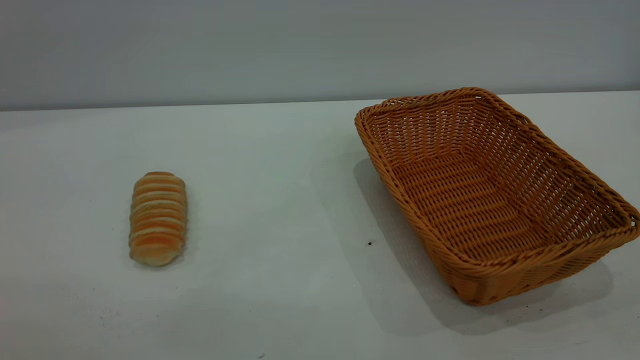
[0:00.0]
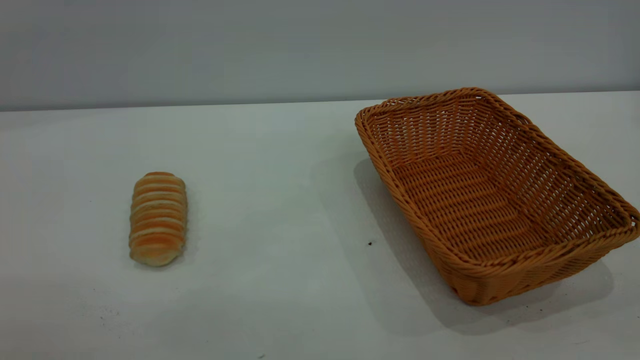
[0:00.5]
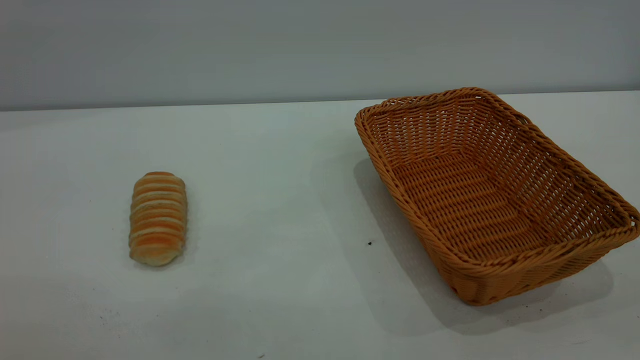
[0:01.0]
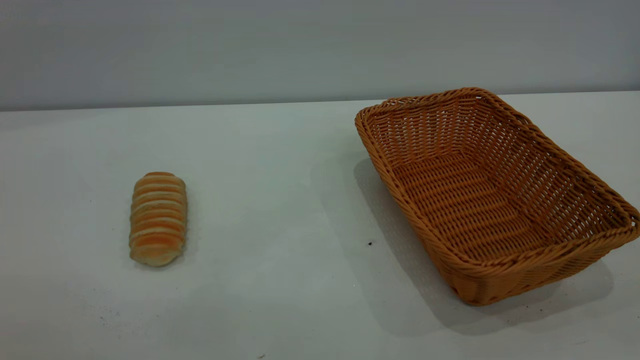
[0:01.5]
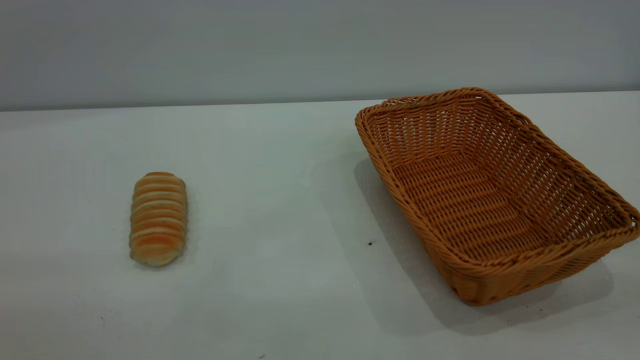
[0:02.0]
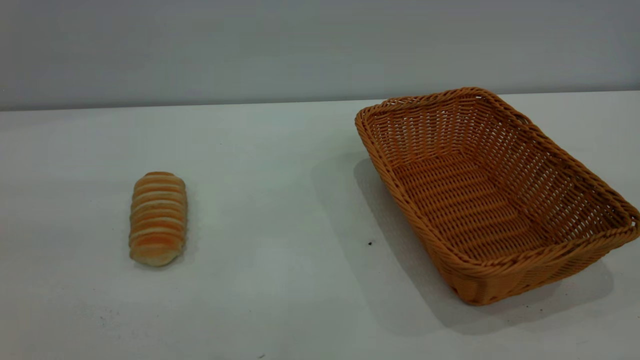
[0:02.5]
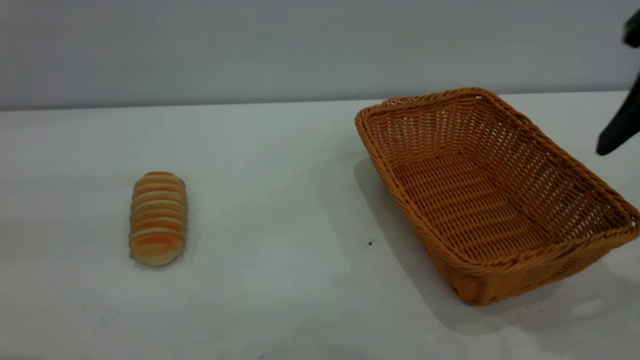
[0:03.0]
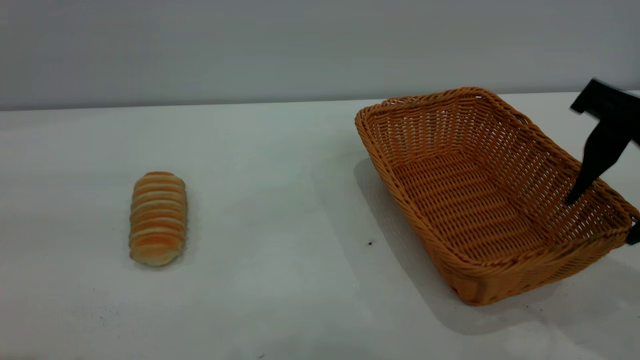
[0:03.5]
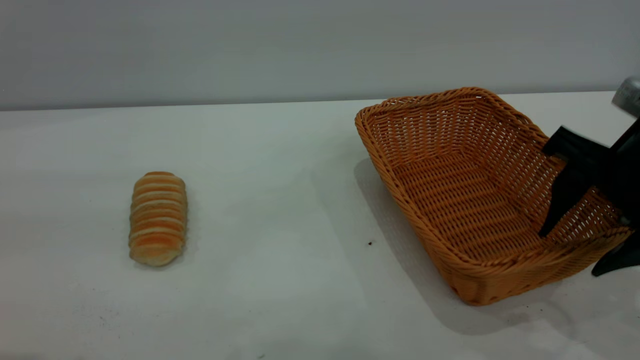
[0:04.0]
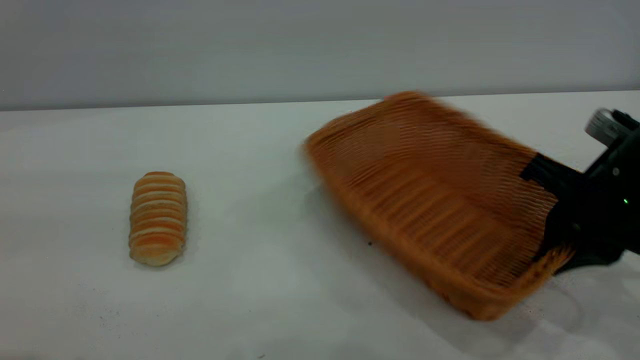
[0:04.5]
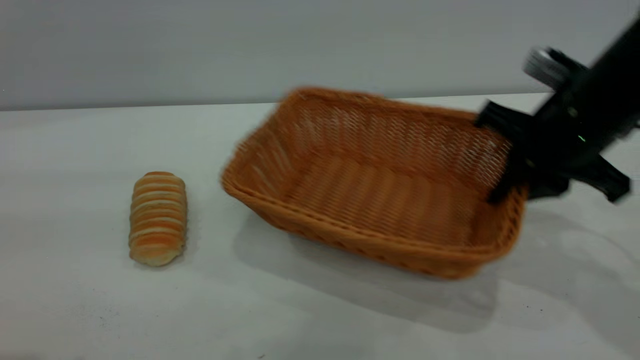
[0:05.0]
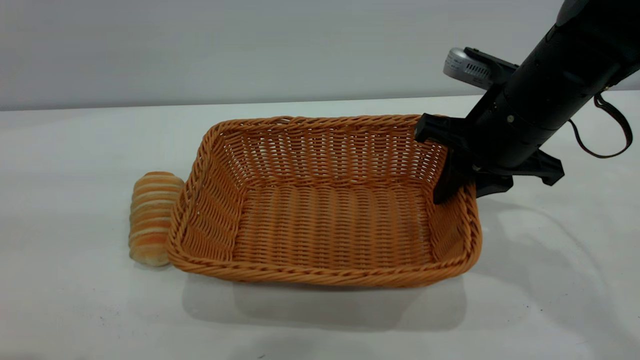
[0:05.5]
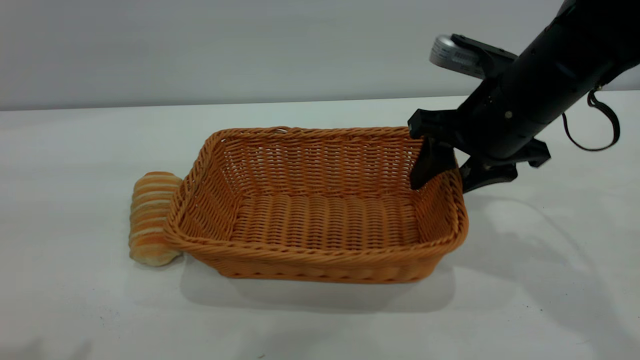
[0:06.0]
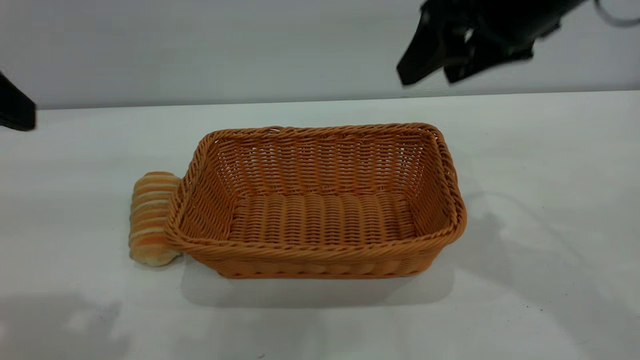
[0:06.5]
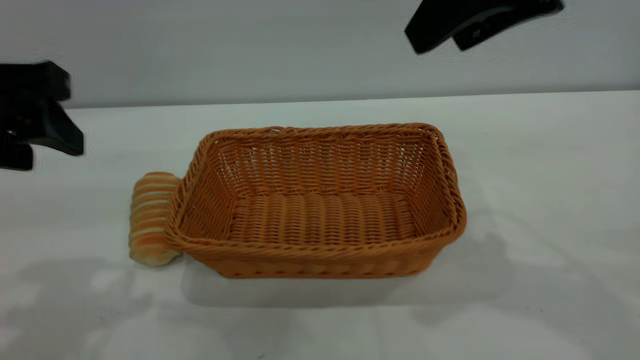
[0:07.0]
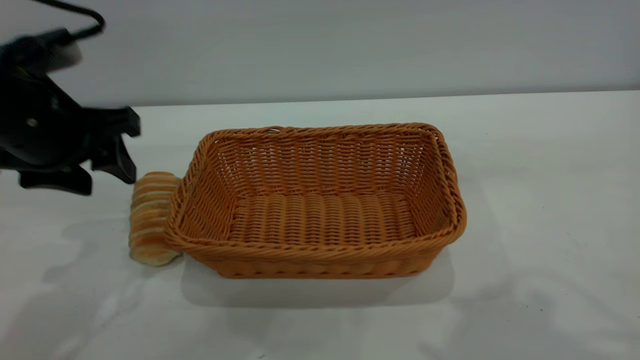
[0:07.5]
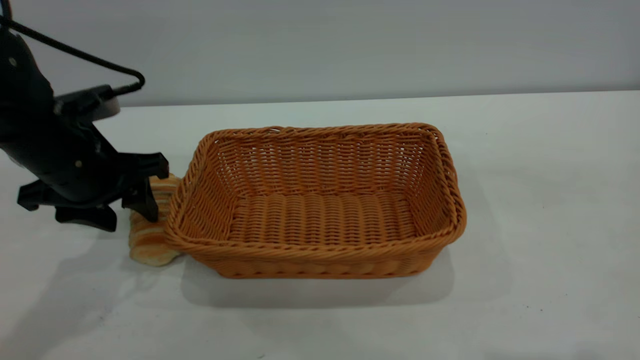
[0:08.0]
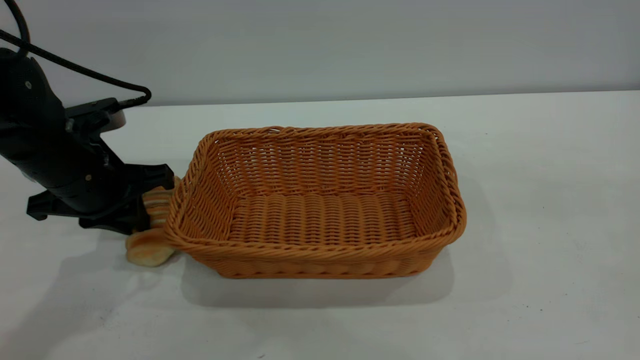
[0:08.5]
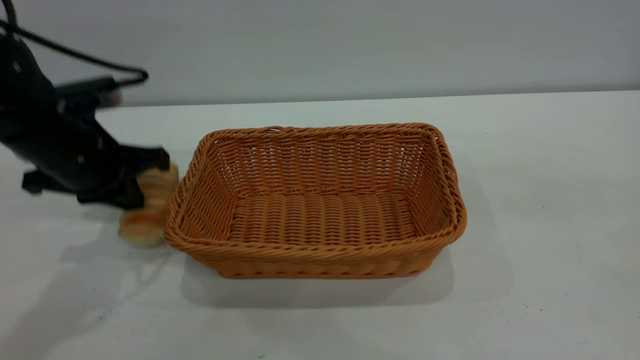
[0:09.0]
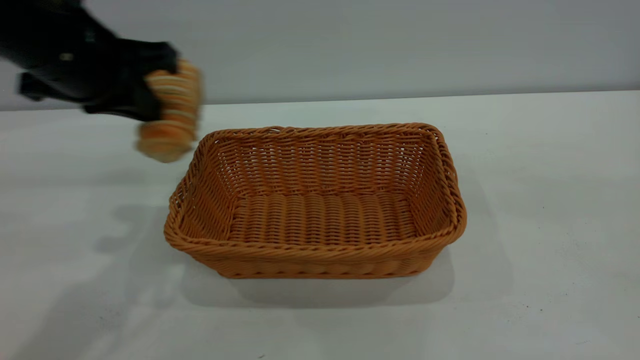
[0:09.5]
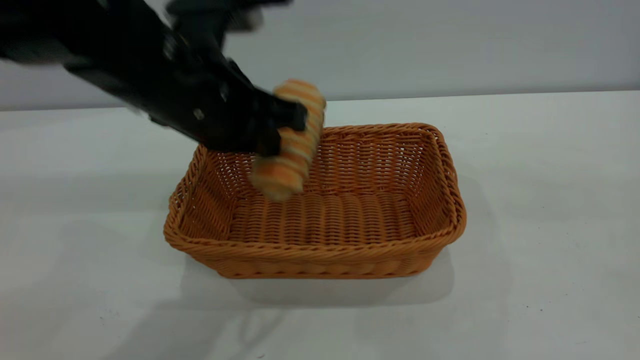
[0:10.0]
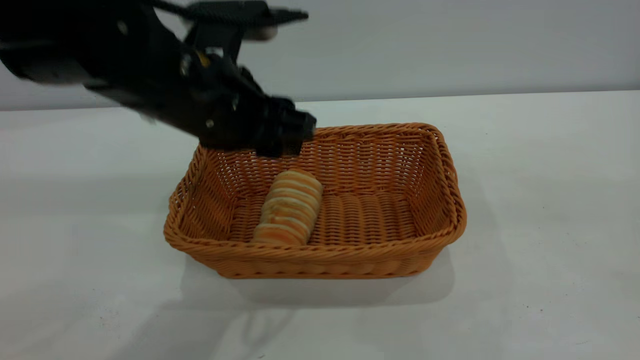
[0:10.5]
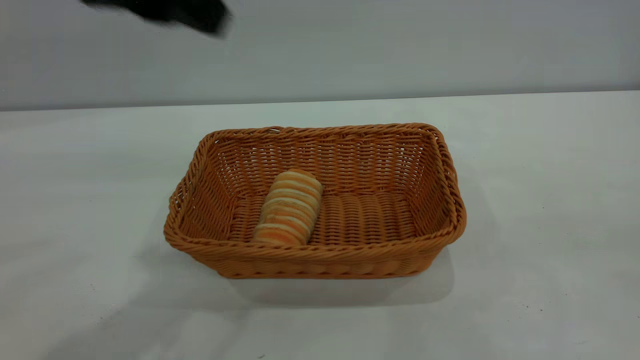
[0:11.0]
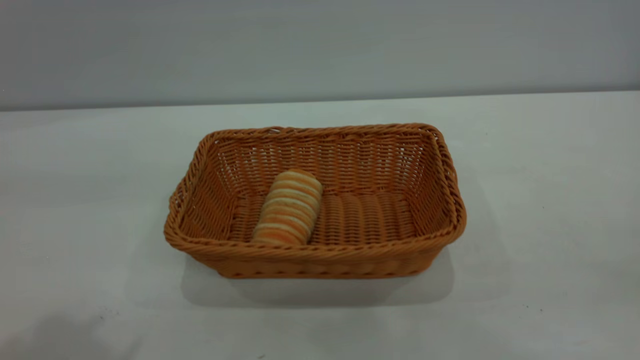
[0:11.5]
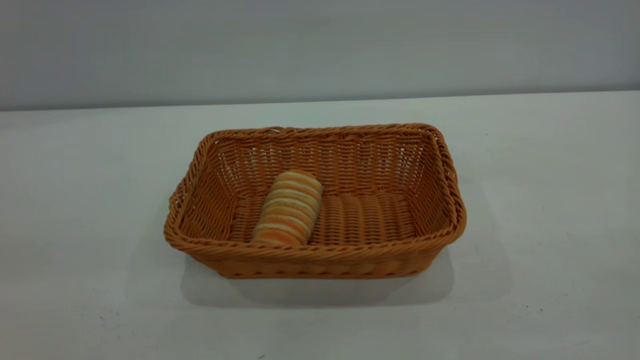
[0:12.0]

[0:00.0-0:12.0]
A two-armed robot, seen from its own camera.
Task of the whole recording: One hand grasps the yellow basket and places it in the middle of the table, while the other hand picks up the long bread and puts it into the yellow basket.
Step, 0:00.0 to 0:06.0: Move the basket to the center of view.
Step, 0:09.5 to 0:10.5: place the bread into the basket.
0:02.0 to 0:04.0: The right gripper travels forward and downward by some 30 cm.
0:04.0 to 0:06.0: The right gripper travels forward and to the left by about 10 cm, and closes and opens again.
0:06.0 to 0:08.0: The left gripper travels downward and forward by about 30 cm. The right gripper is displaced upward and backward by approximately 35 cm.
0:08.0 to 0:10.0: The left gripper moves to the right and upward, approximately 15 cm, and closes.
0:10.0 to 0:12.0: The right gripper shifts approximately 15 cm downward, backward and to the right. The left gripper moves backward, upward and to the left, roughly 35 cm, and opens.

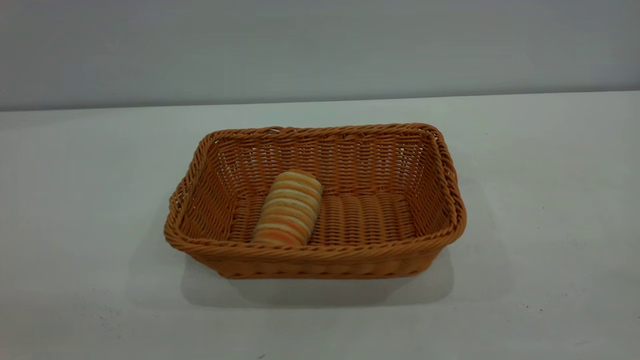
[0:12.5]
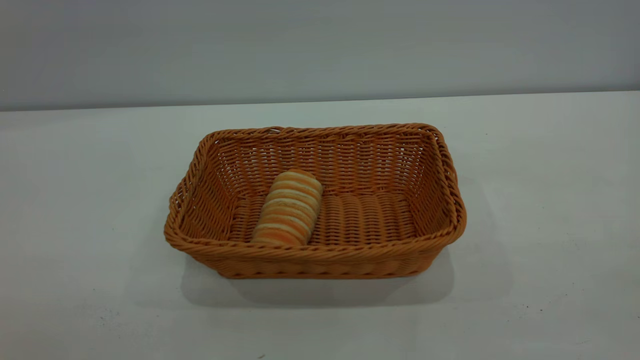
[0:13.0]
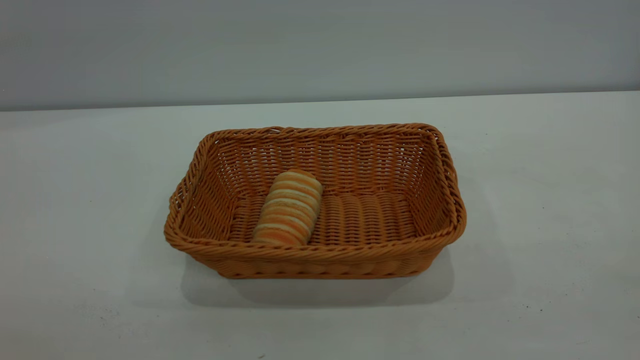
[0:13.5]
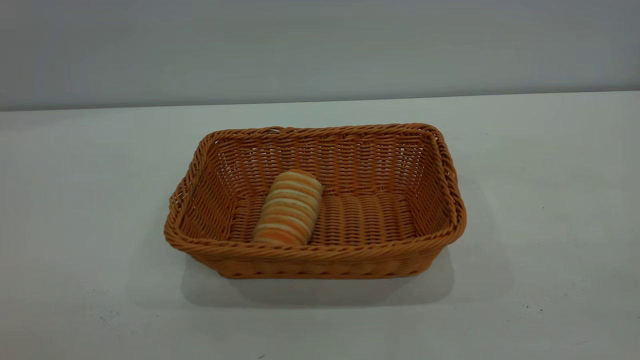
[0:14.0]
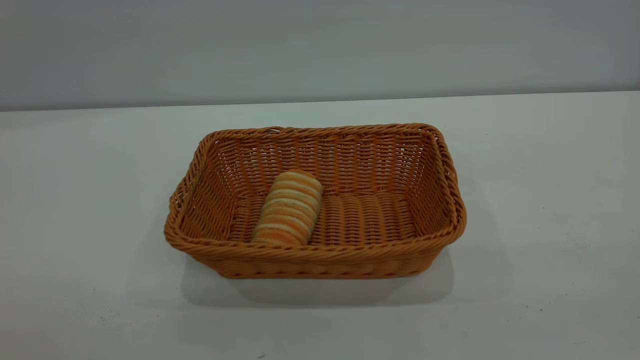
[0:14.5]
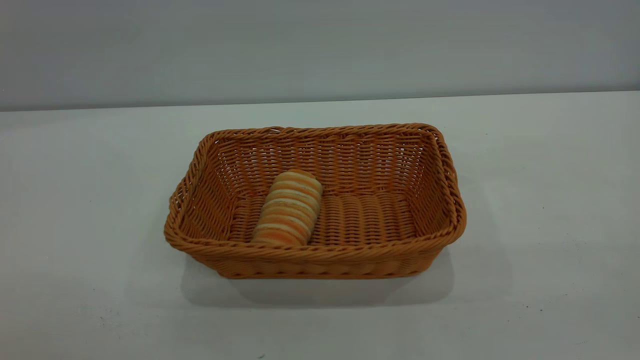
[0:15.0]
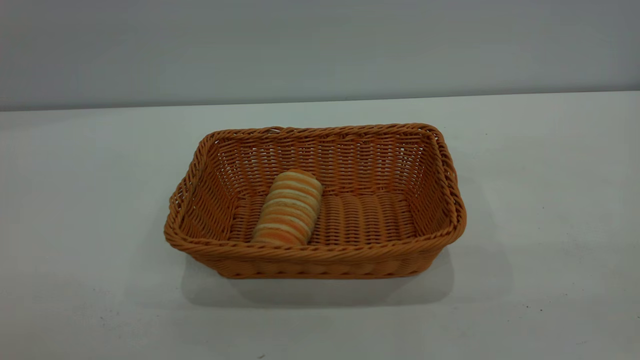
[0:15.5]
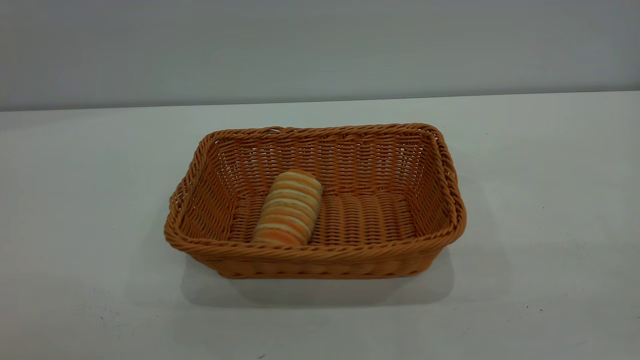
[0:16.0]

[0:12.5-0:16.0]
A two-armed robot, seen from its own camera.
Task of the whole recording: One hand grasps the yellow basket and places it in the middle of the table, while the other hand picks up the long bread and puts it into the yellow basket.
0:14.5 to 0:16.0: Both grippers stay put.
